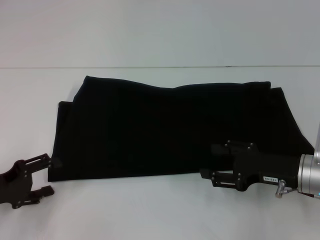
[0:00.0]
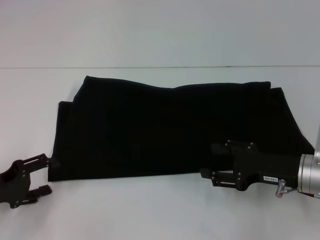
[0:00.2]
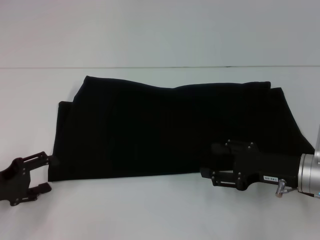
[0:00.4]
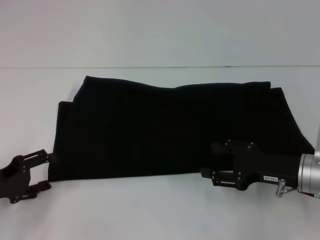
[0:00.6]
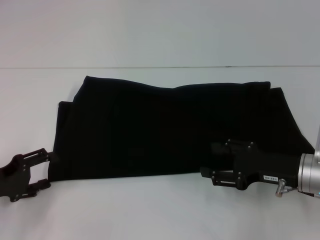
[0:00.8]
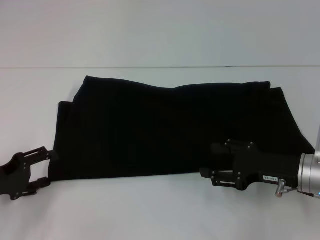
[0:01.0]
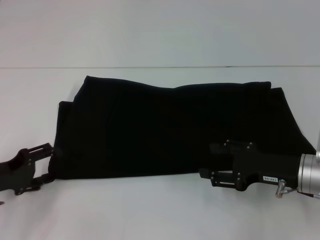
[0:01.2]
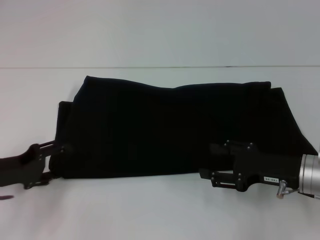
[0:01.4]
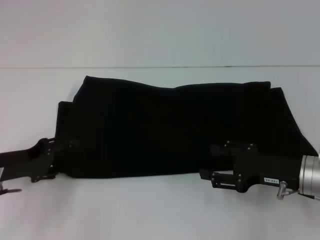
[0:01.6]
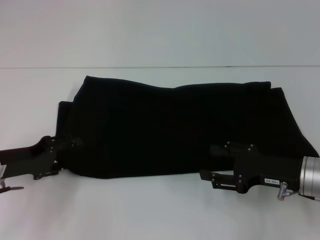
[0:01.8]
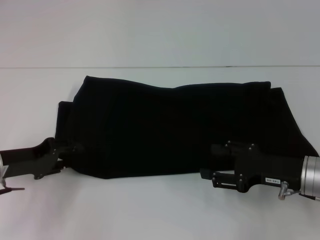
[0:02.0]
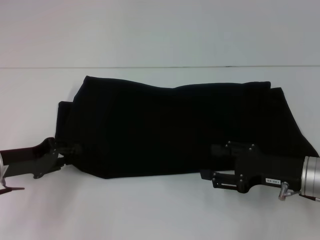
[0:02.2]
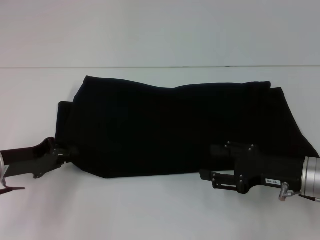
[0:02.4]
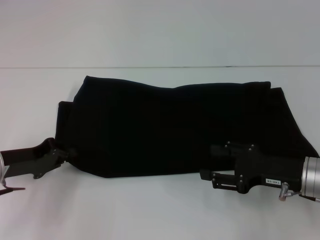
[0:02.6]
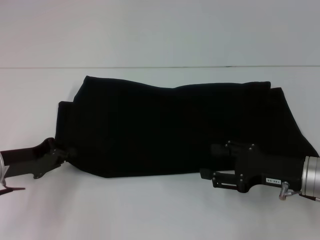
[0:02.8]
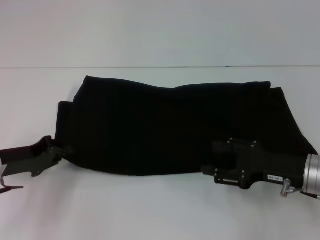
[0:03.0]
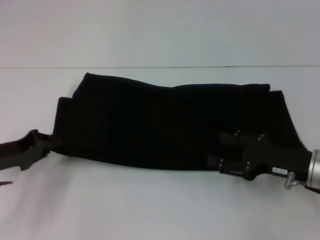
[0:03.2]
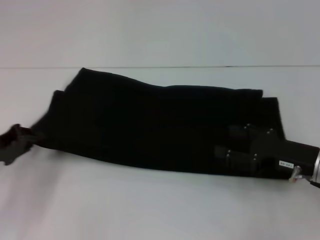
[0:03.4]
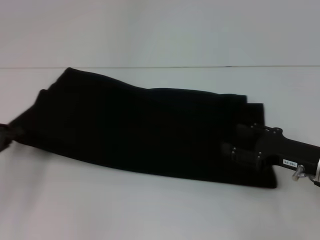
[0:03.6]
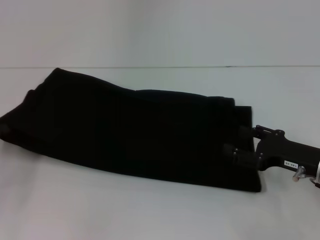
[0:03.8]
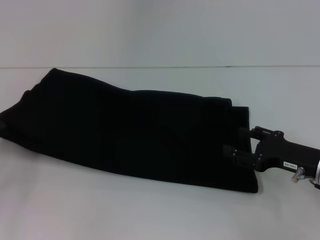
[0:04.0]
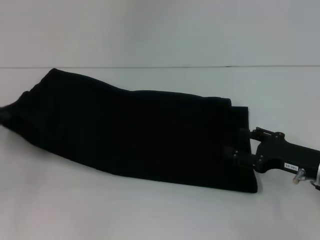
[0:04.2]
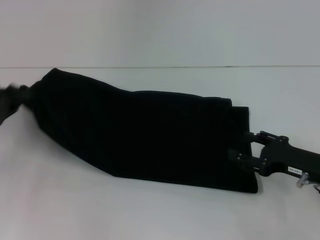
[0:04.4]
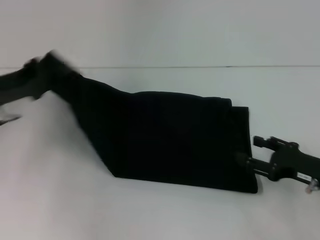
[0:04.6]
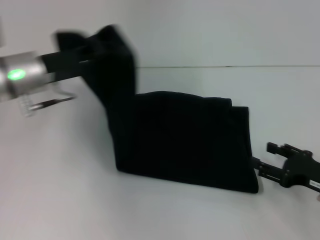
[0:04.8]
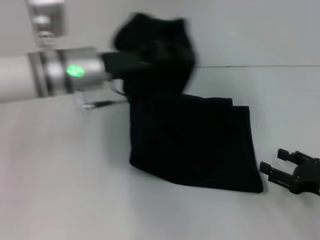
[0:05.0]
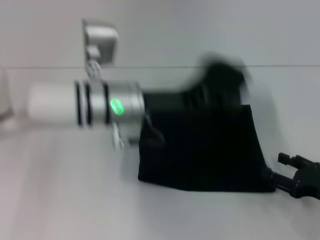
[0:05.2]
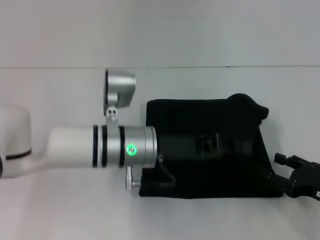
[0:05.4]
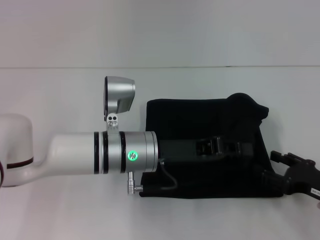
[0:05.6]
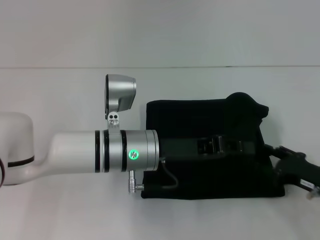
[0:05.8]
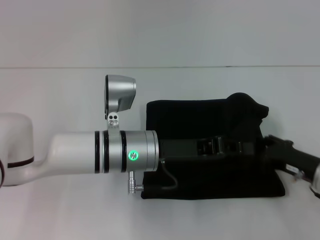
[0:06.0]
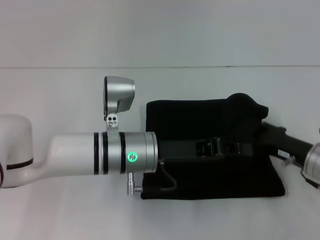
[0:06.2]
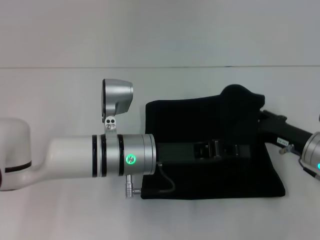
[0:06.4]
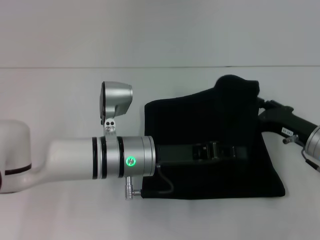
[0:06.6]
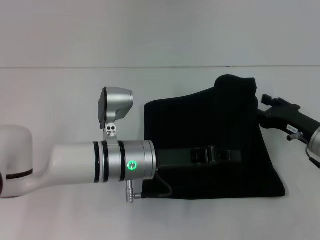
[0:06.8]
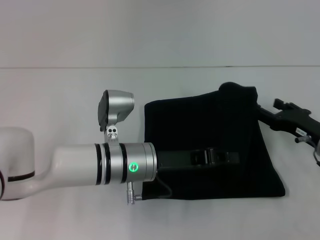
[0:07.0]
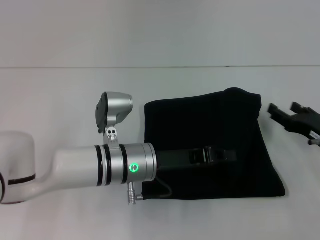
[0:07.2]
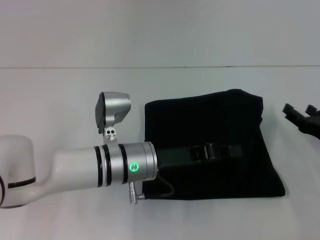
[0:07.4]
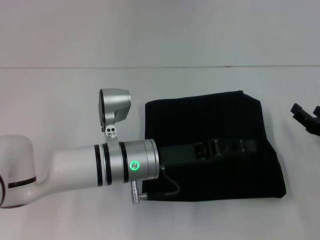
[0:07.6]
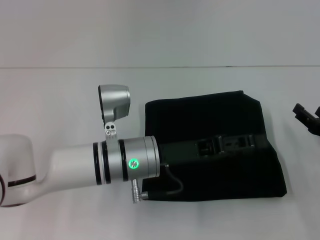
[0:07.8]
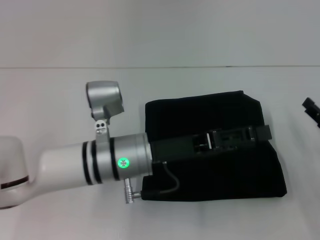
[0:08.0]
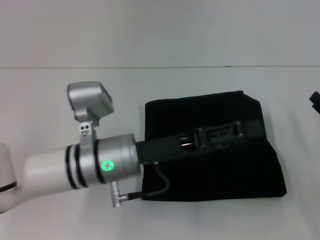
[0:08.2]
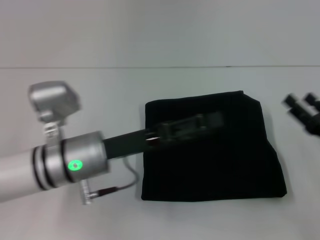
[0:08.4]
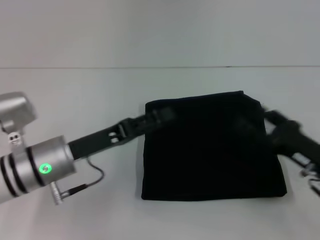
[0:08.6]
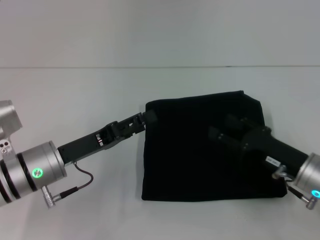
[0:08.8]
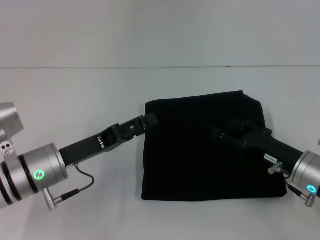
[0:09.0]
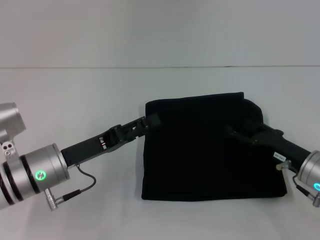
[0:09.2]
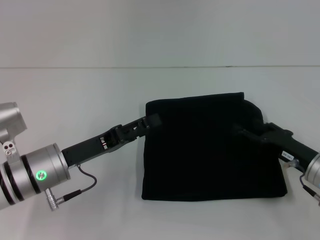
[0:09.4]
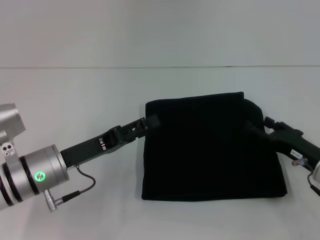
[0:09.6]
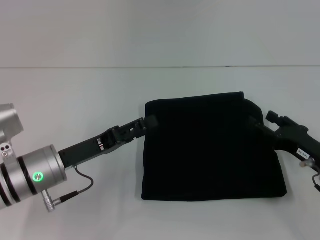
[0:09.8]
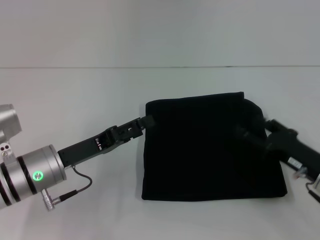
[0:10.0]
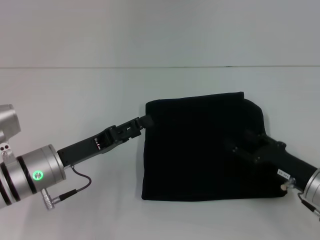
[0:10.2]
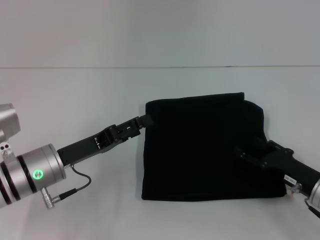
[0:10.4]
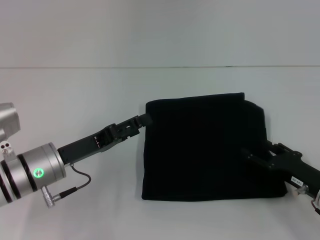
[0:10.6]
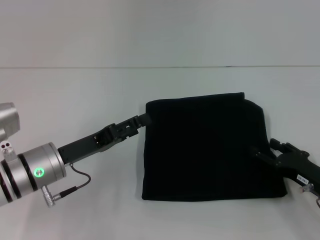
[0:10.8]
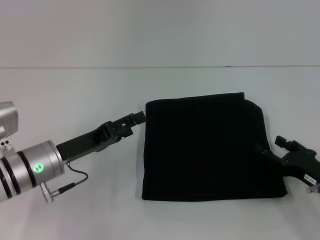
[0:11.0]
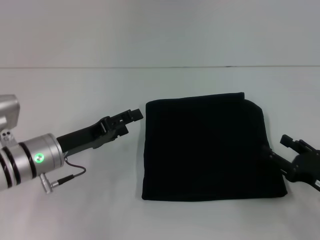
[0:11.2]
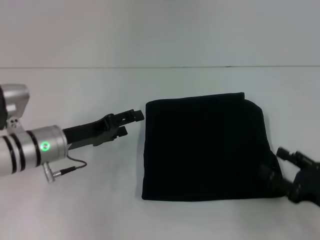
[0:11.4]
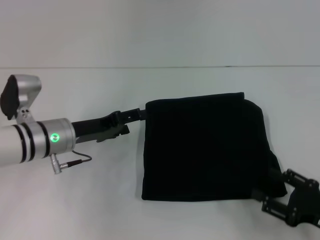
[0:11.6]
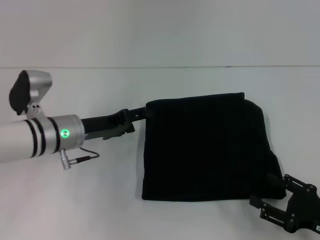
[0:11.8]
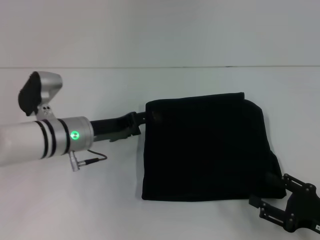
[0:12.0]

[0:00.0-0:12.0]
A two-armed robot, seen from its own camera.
Step, 0:00.0 to 0:08.2: Fold the clothes with your left hand.
0:00.0 to 0:01.6: The left gripper changes place by about 5 cm.
0:01.6 to 0:03.0: The left gripper closes its fingers.
0:03.0 to 0:04.4: The left gripper goes about 5 cm upward and to the left.
0:04.4 to 0:06.0: The left gripper heads to the right, covering roughly 30 cm.
0:07.6 to 0:09.0: The two grippers go approximately 10 cm to the left. The left gripper opens its fingers.
0:09.0 to 0:10.4: The grippers make only small movements.
0:10.4 to 0:12.0: The right gripper is displaced backward by approximately 5 cm; the left gripper moves forward, roughly 5 cm.

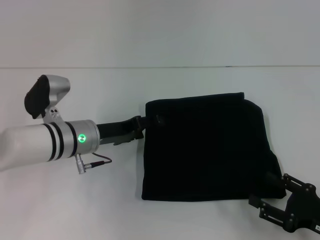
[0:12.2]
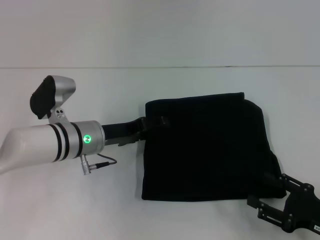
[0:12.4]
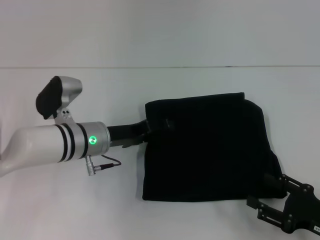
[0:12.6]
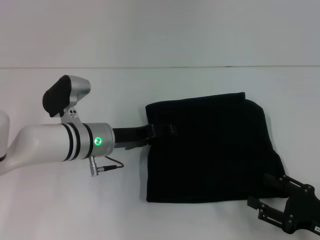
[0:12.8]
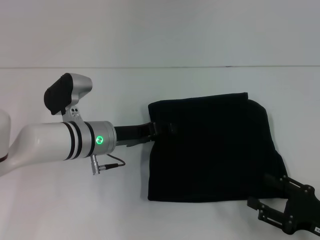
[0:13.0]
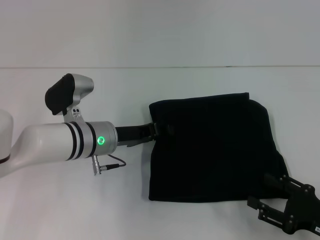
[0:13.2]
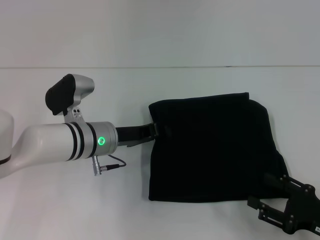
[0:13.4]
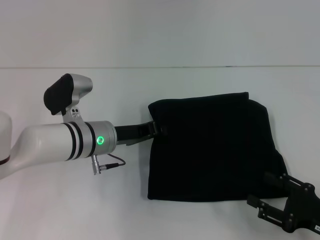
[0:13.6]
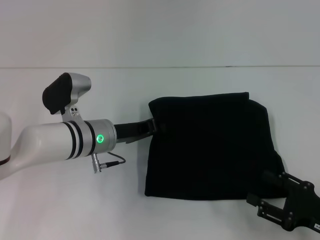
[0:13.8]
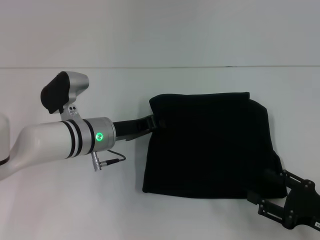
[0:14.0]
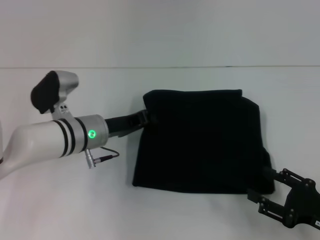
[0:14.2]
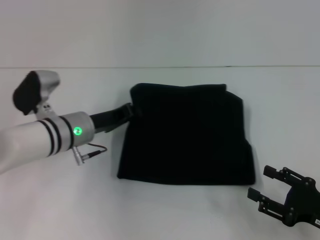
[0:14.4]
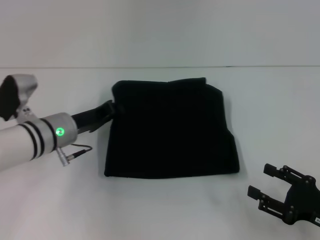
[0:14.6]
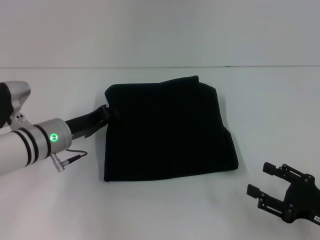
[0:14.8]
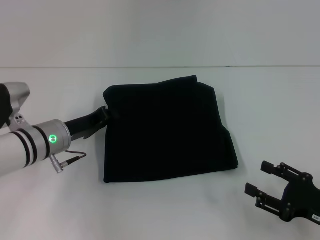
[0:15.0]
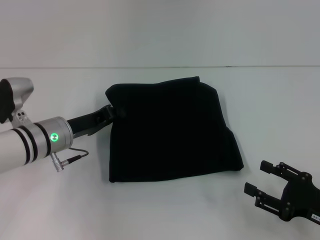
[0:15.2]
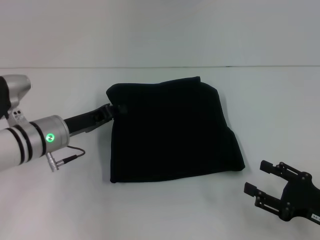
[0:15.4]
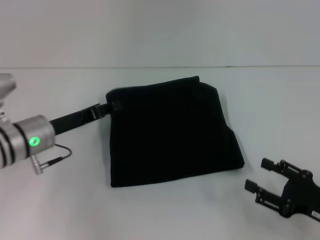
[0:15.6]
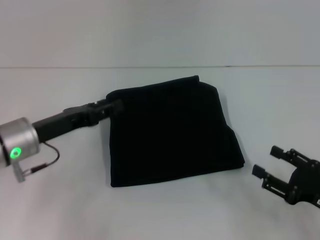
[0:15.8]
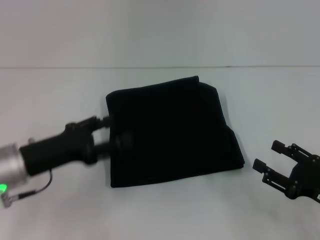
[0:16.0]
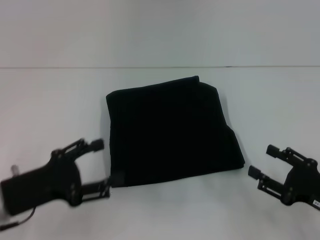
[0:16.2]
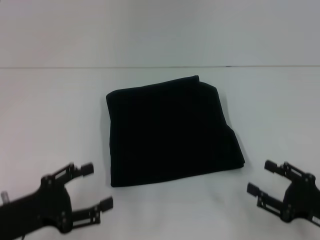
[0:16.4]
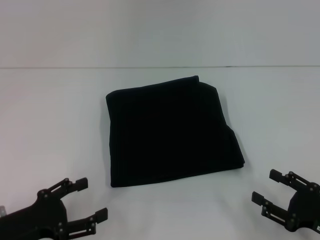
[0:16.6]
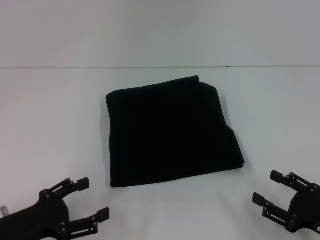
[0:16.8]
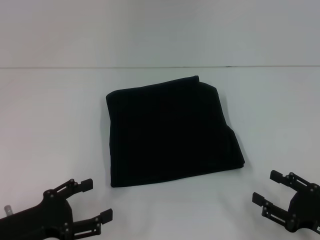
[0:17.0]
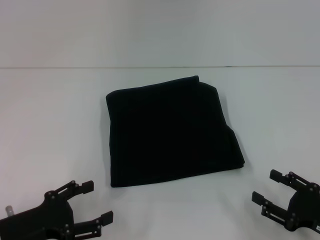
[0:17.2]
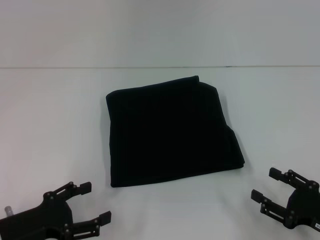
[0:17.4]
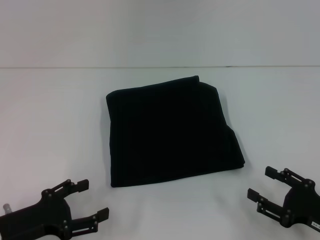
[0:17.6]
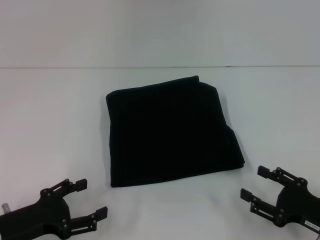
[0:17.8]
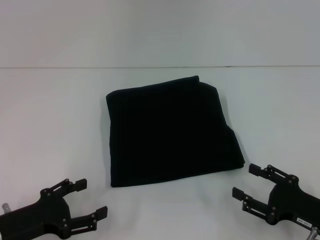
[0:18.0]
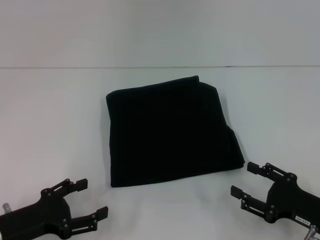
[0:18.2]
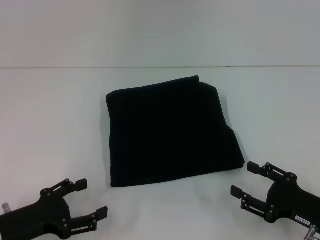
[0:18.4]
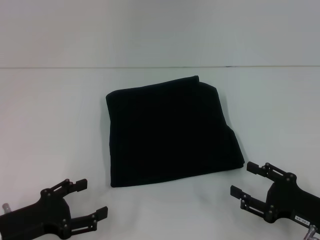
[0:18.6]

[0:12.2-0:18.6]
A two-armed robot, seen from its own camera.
0:12.2 to 0:13.8: The left gripper closes up.
0:13.8 to 0:15.4: The left gripper travels to the left by about 5 cm.
0:15.4 to 0:17.0: The left gripper shifts about 15 cm backward, and opens.
0:17.0 to 0:18.6: The grippers move only a little.
